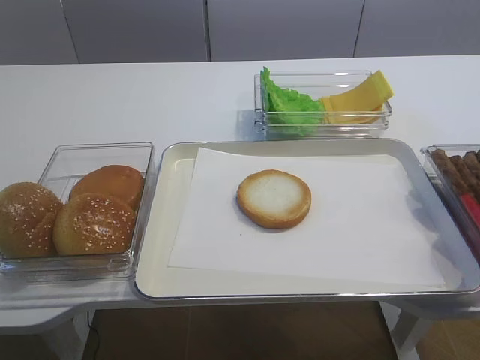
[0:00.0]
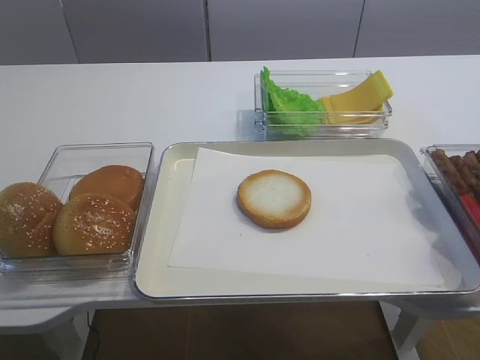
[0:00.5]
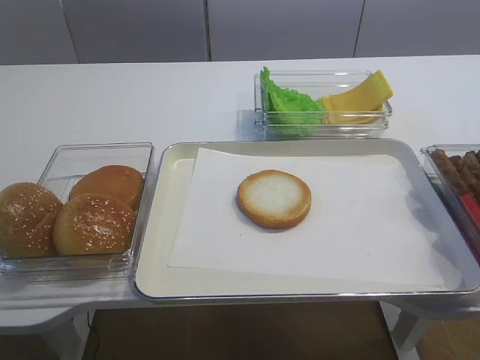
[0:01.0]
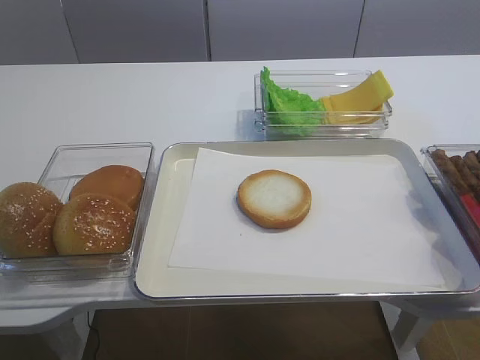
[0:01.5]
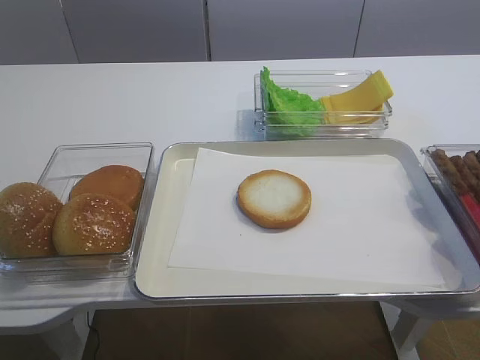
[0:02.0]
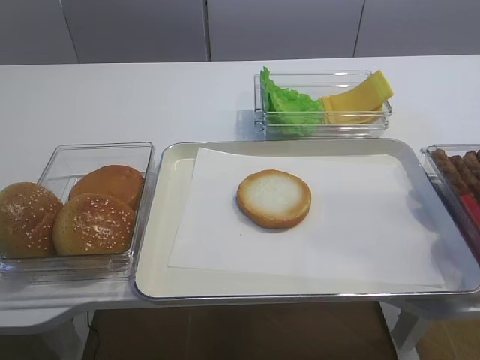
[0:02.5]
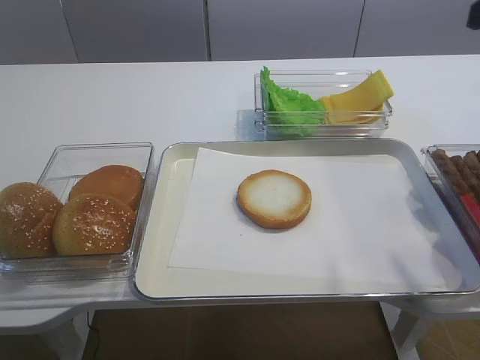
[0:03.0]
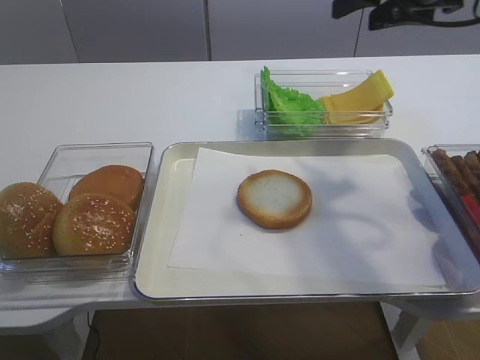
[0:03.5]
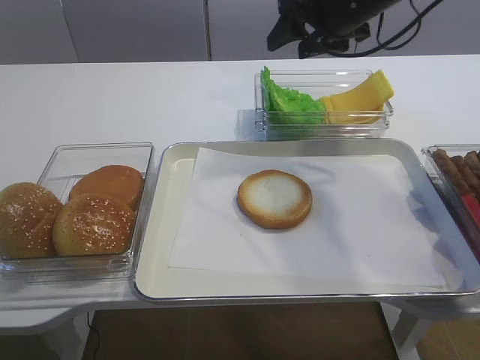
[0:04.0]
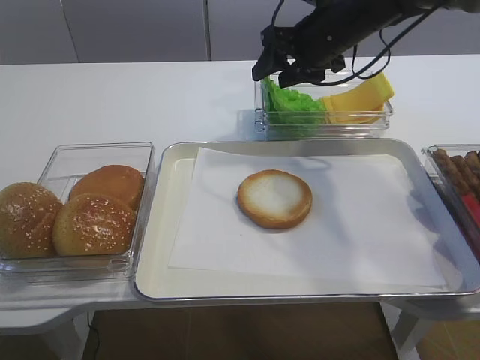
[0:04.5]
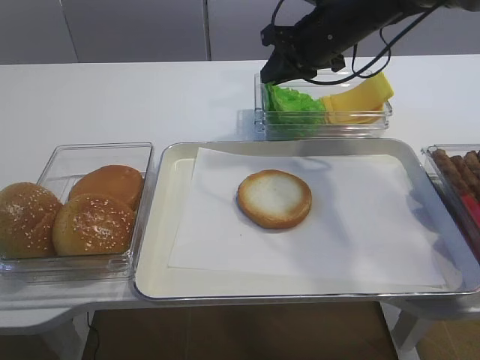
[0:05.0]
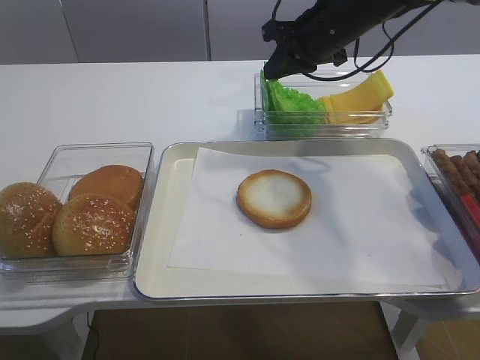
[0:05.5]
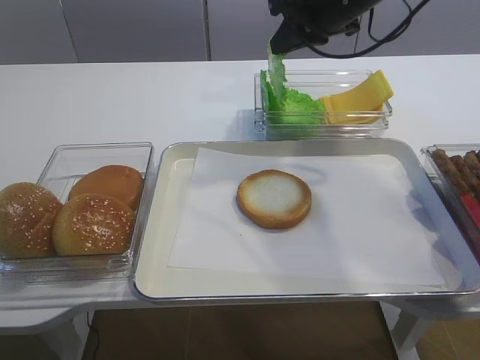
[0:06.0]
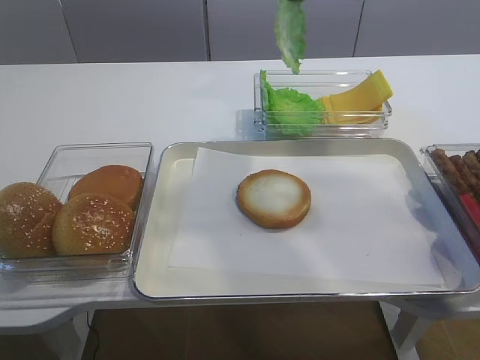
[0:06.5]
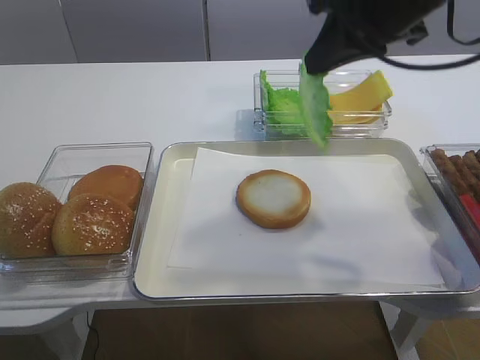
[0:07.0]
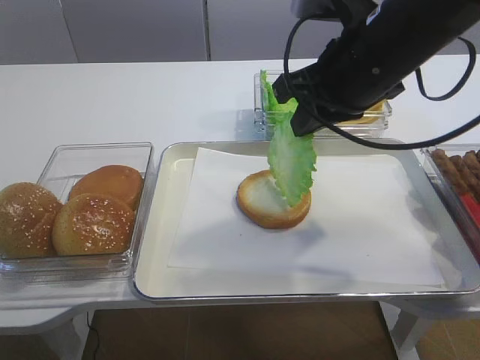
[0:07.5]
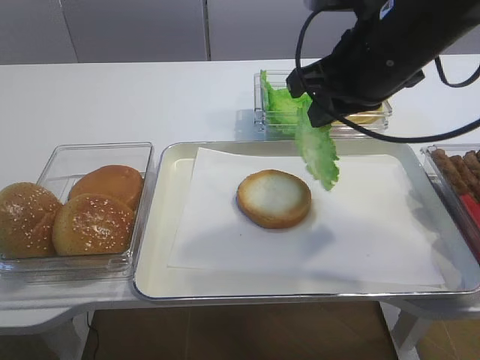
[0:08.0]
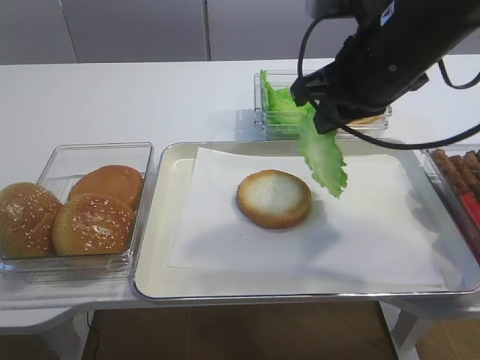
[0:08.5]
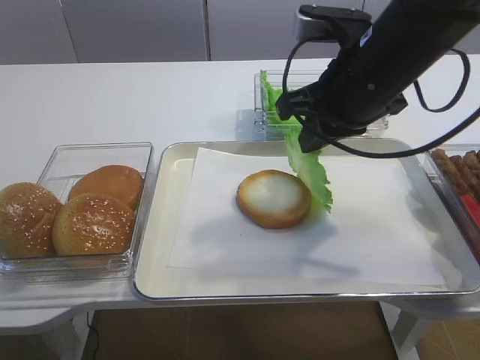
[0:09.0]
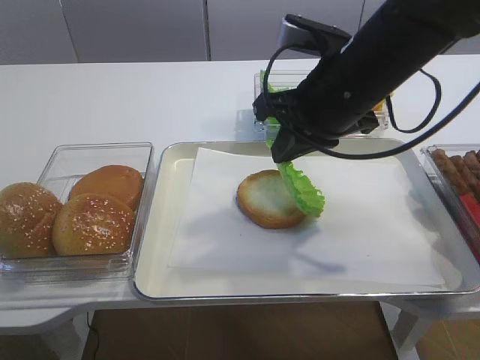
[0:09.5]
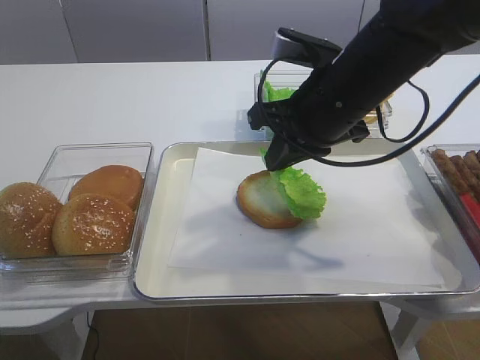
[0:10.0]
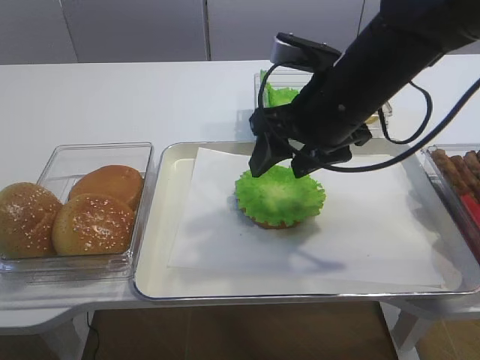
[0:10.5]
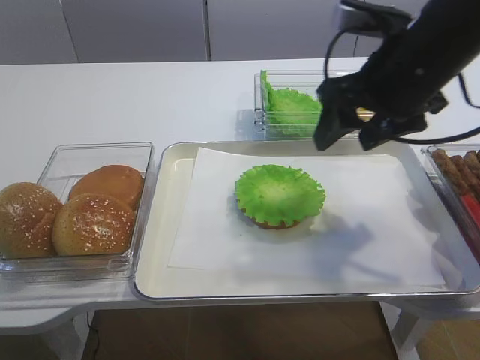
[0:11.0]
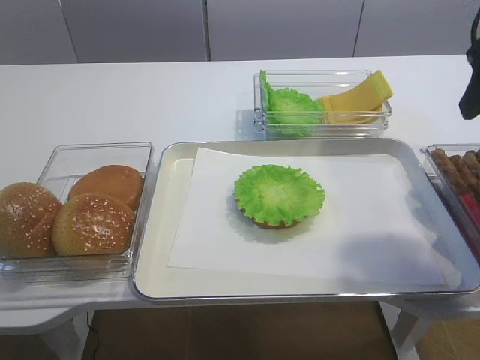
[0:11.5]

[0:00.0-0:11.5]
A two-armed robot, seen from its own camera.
Step, 0:00.0 to 0:06.5: Pick up the lettuce leaf with the right gripper.
Step, 0:07.0 to 0:10.0: Place the lettuce leaf on the bread slice with the right gripper.
0:02.0 to 0:04.0: The right gripper heads forward, covering about 40 cm.
0:04.0 to 0:06.0: The right gripper closes up.
0:06.0 to 0:07.5: The right gripper shifts roughly 15 cm backward.
0:07.5 to 0:09.5: There are only small adjustments of the grippers.
0:09.5 to 0:11.5: The right gripper is displaced to the right and upward by roughly 20 cm, and opens its fingers.

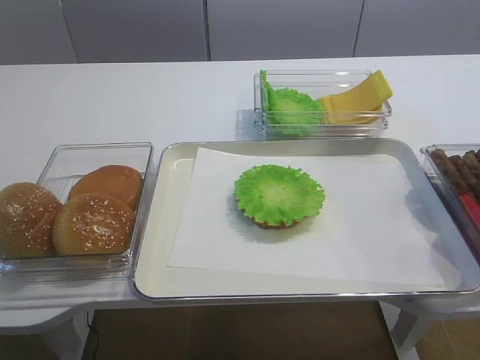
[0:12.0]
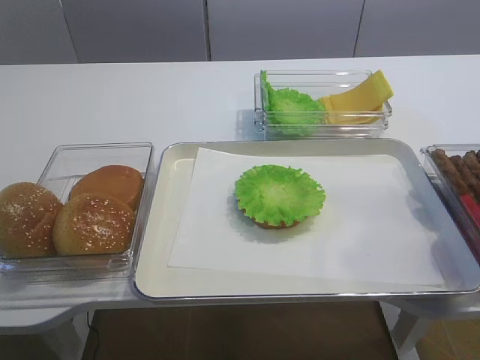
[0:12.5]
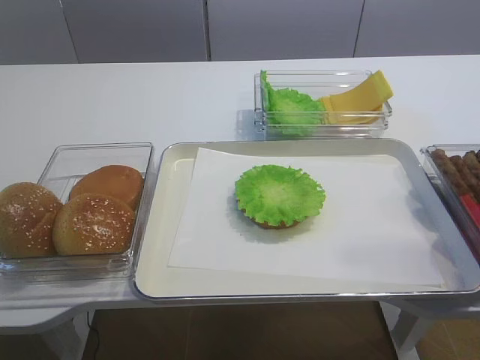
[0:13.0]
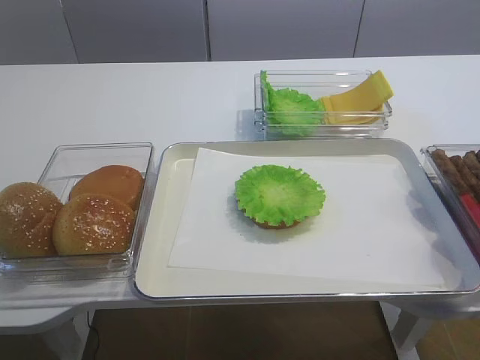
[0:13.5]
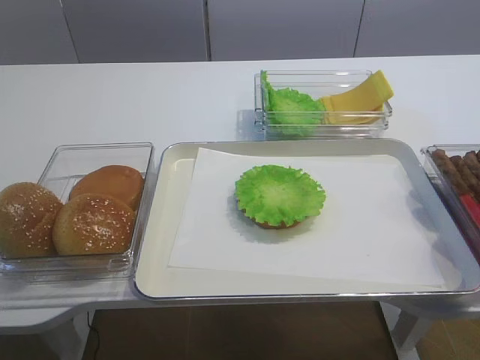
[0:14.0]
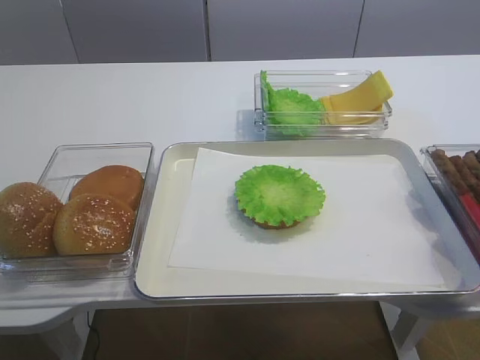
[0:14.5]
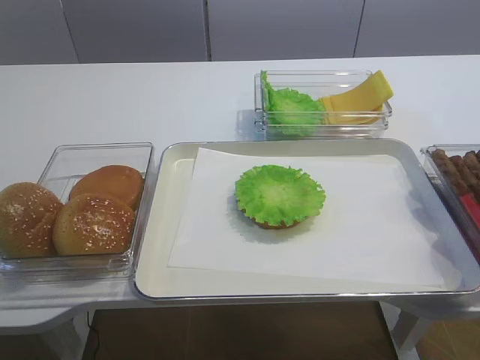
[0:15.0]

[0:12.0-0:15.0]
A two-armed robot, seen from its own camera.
0:12.0 to 0:13.5: The right gripper heads backward, covering approximately 20 cm.
0:13.5 to 0:15.0: Neither gripper changes place.

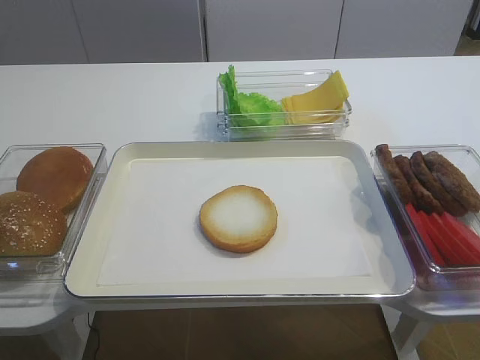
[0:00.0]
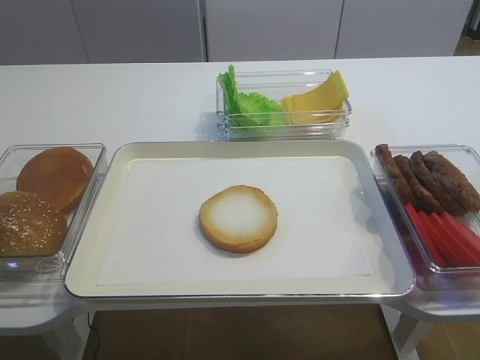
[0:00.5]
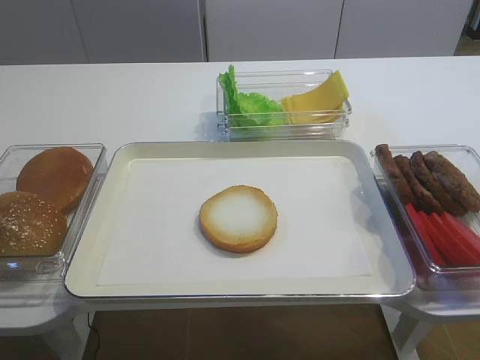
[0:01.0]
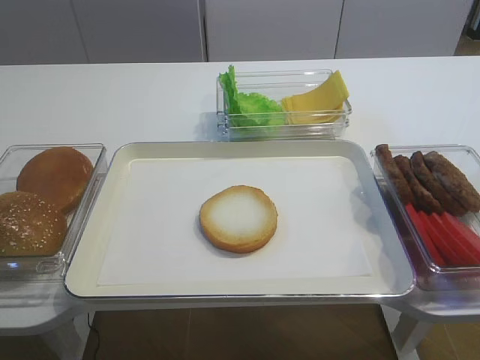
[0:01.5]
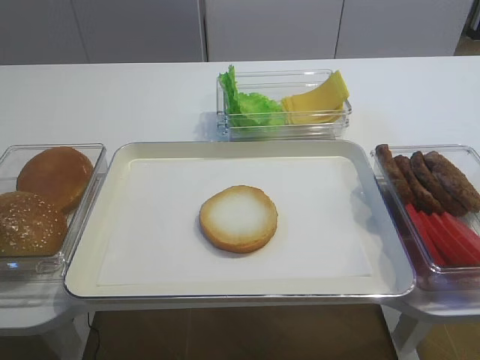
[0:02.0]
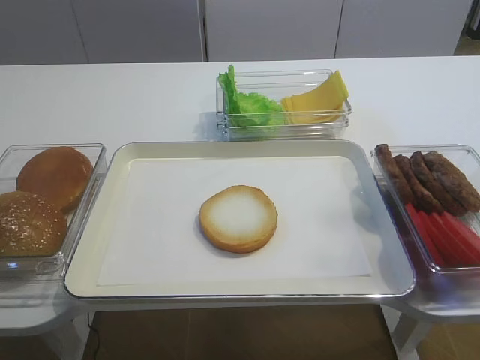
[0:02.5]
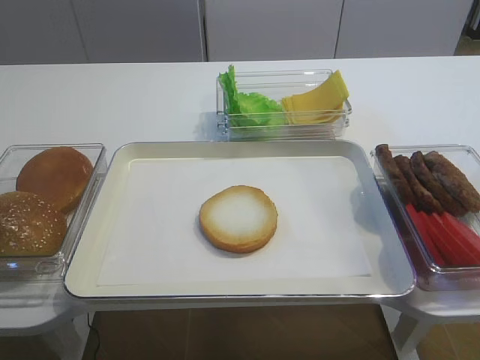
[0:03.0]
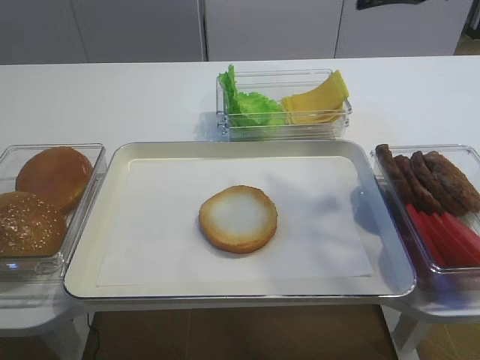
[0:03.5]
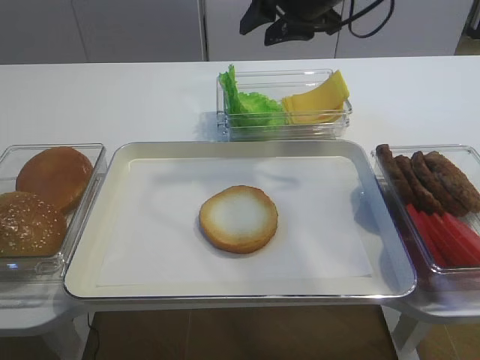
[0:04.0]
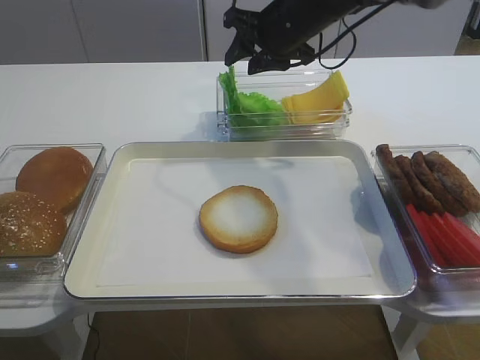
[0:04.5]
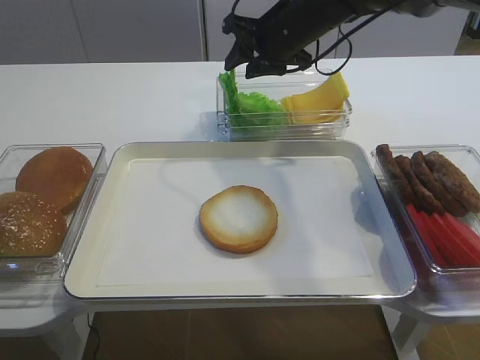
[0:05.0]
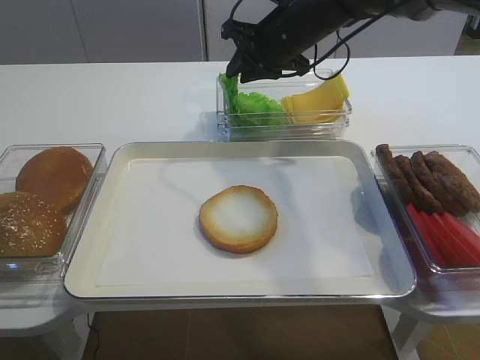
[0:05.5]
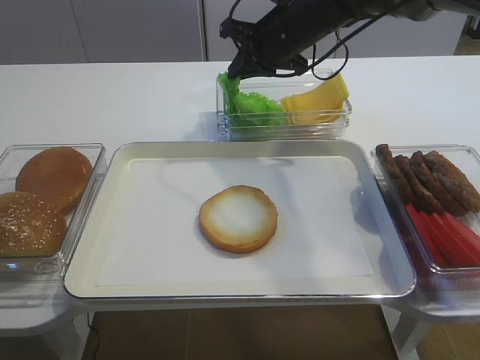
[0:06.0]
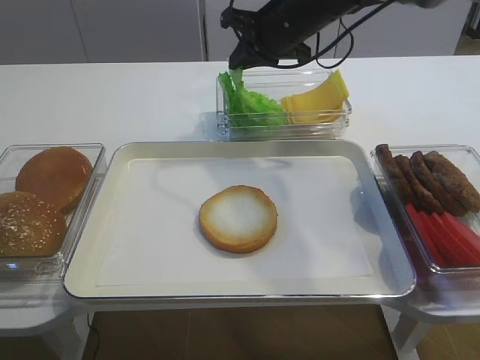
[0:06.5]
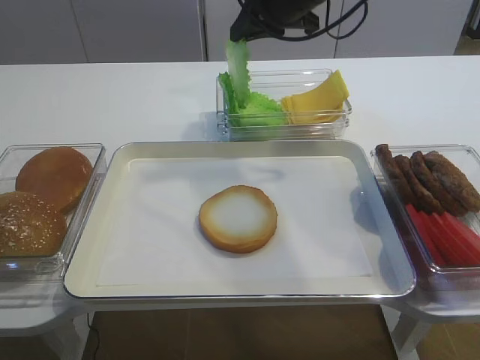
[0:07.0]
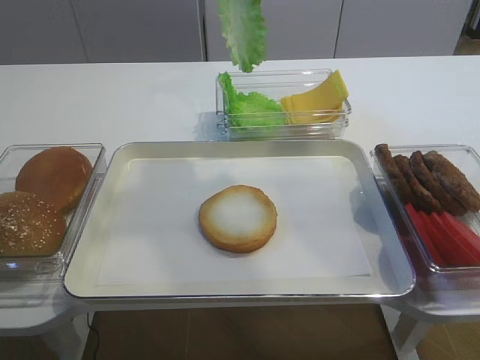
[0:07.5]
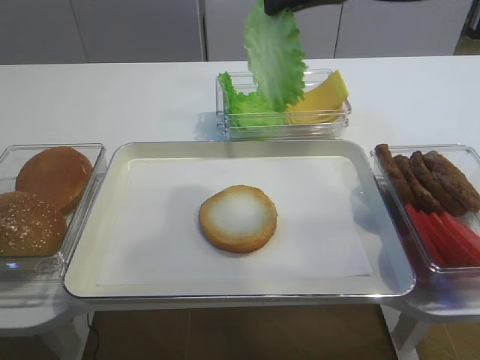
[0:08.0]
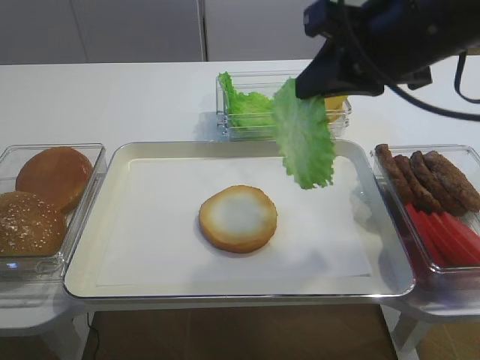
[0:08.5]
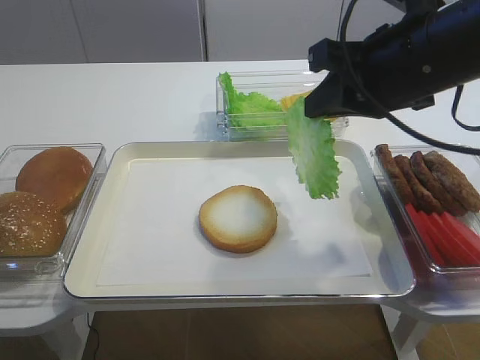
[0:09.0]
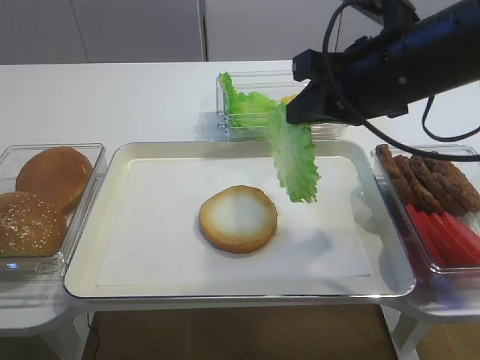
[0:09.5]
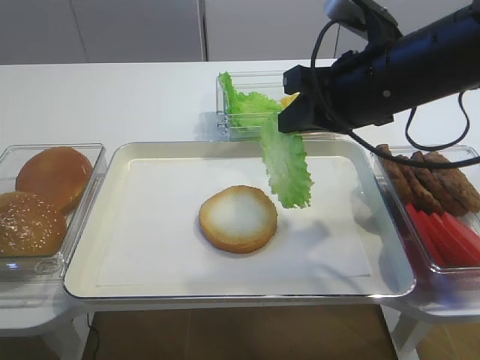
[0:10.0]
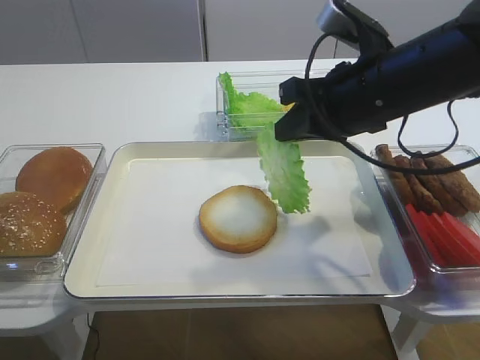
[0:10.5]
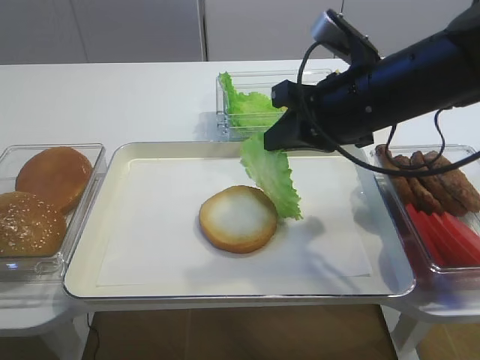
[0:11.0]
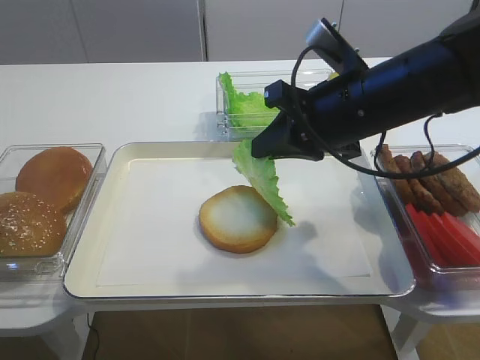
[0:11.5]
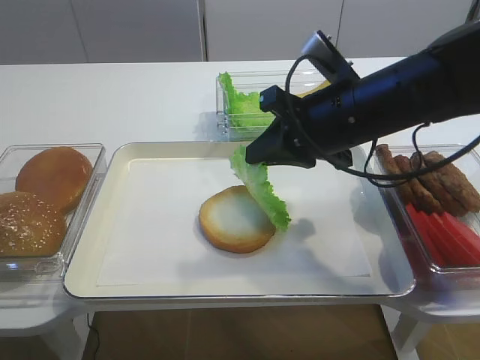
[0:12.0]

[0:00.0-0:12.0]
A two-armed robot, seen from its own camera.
Step, 0:00.0 to 0:06.5: Pick up the lettuce leaf with the right gripper.
0:02.0 to 0:04.0: The right gripper is displaced forward and to the left by approximately 50 cm.
0:04.0 to 0:06.0: The right gripper travels downward by approximately 5 cm, and closes.
0:06.0 to 0:08.0: The right gripper is displaced backward and upward by approximately 20 cm.
0:08.0 to 0:10.0: The right gripper heads downward, covering about 10 cm.
0:10.0 to 0:12.0: There are only small adjustments of the grippers.
